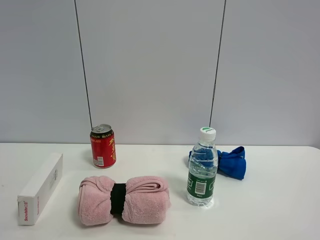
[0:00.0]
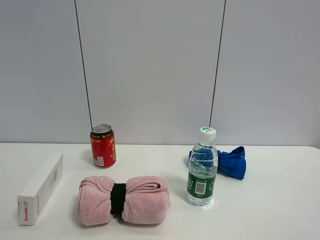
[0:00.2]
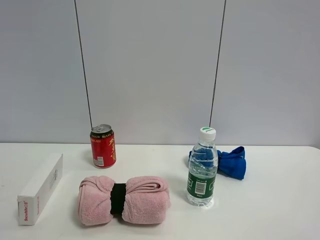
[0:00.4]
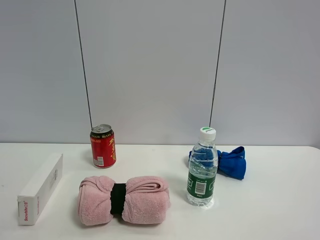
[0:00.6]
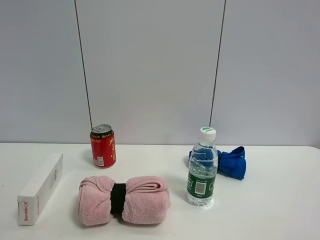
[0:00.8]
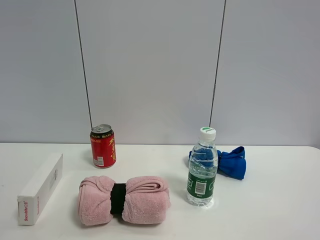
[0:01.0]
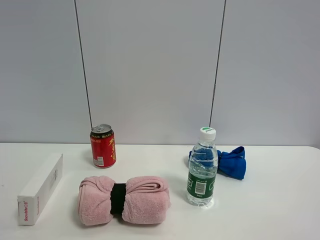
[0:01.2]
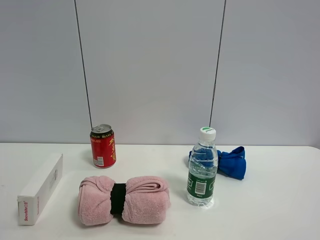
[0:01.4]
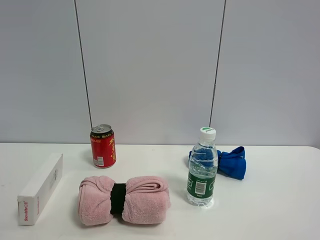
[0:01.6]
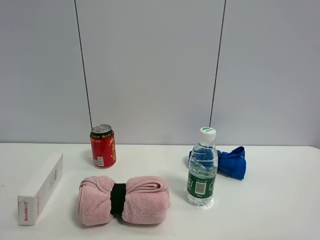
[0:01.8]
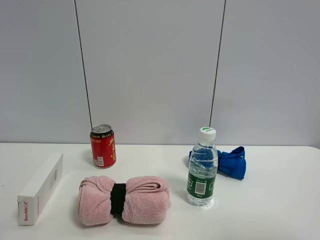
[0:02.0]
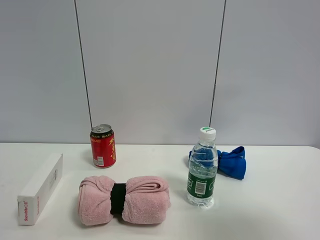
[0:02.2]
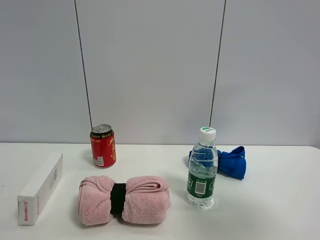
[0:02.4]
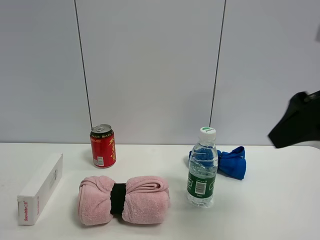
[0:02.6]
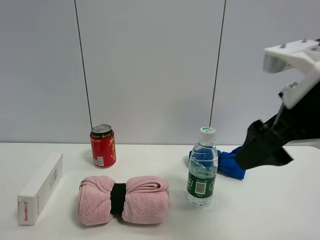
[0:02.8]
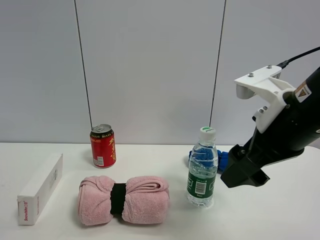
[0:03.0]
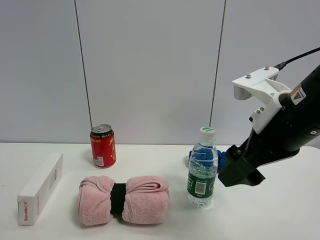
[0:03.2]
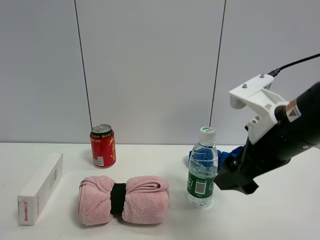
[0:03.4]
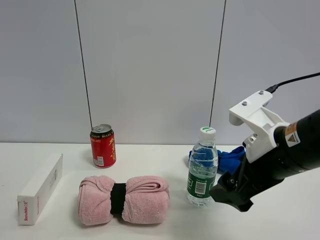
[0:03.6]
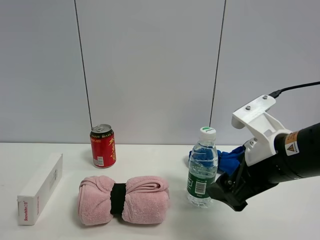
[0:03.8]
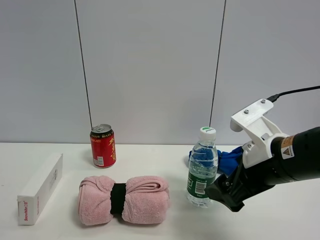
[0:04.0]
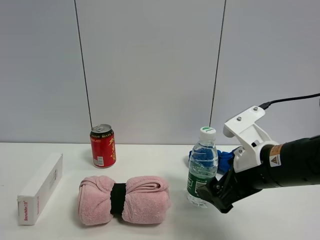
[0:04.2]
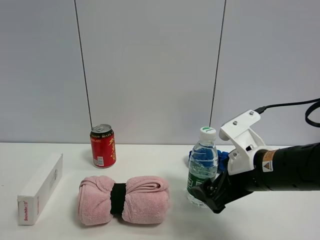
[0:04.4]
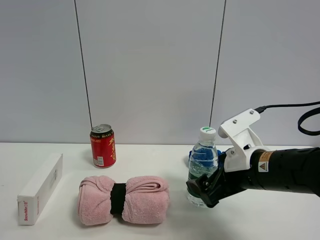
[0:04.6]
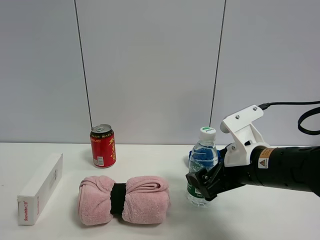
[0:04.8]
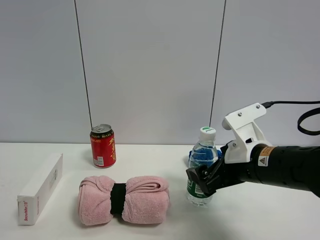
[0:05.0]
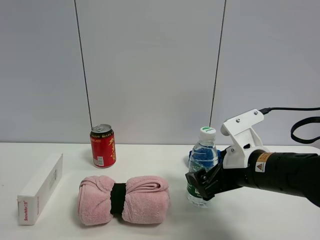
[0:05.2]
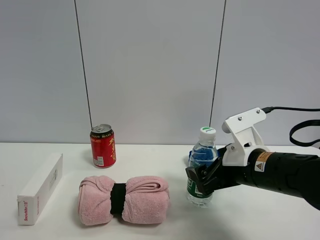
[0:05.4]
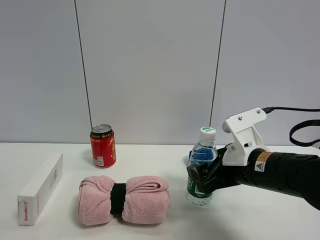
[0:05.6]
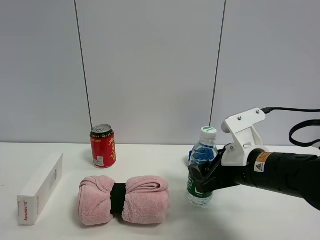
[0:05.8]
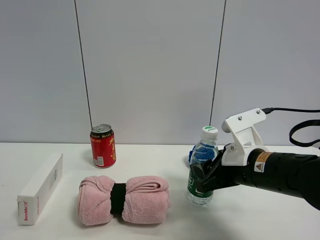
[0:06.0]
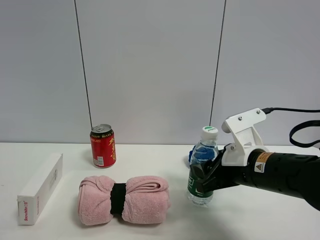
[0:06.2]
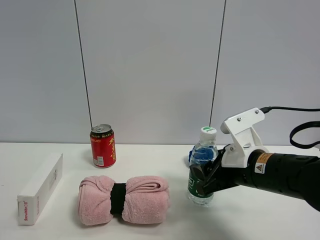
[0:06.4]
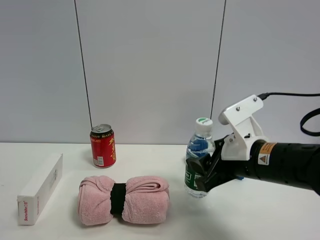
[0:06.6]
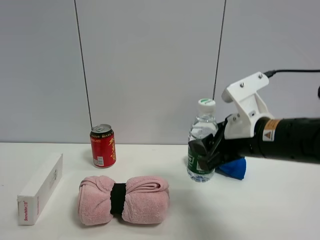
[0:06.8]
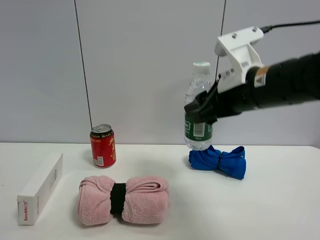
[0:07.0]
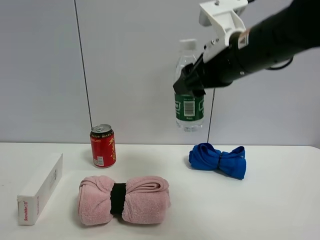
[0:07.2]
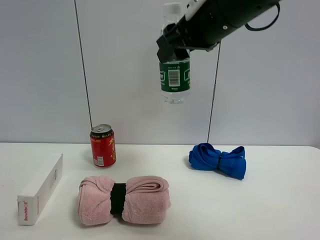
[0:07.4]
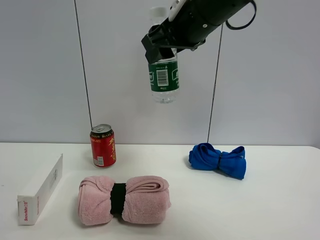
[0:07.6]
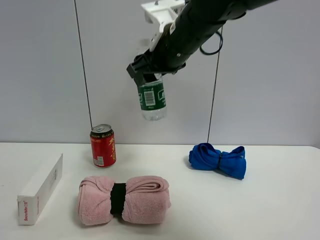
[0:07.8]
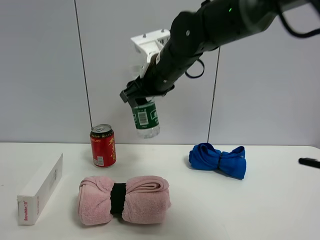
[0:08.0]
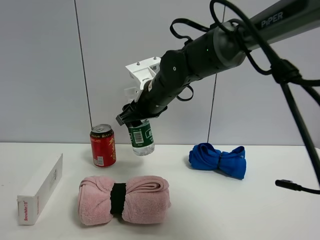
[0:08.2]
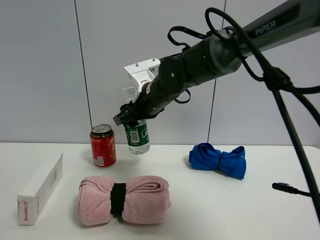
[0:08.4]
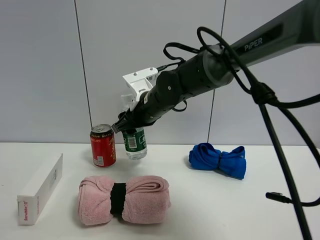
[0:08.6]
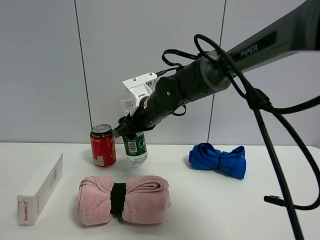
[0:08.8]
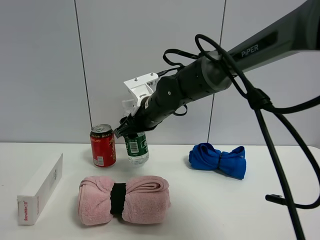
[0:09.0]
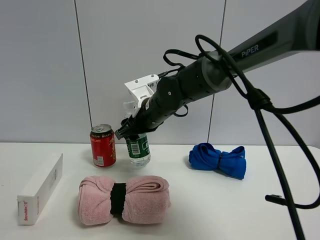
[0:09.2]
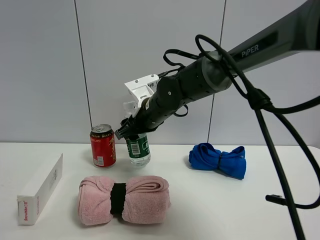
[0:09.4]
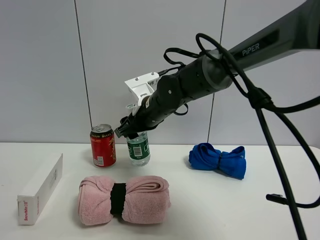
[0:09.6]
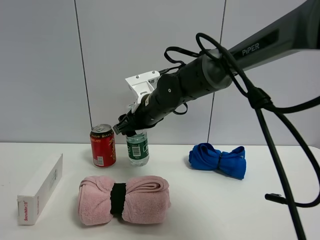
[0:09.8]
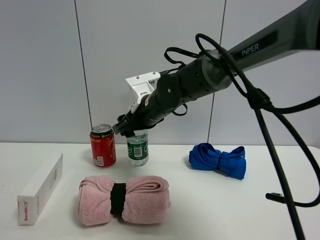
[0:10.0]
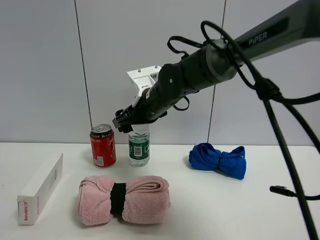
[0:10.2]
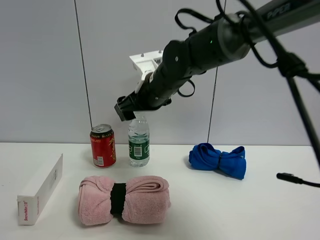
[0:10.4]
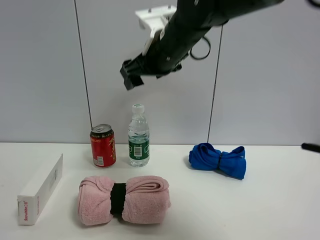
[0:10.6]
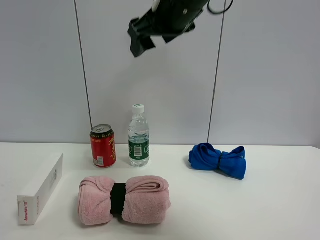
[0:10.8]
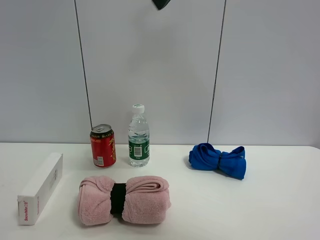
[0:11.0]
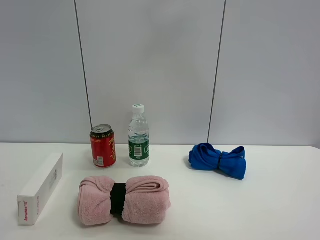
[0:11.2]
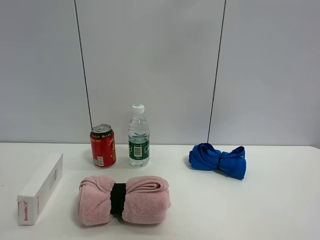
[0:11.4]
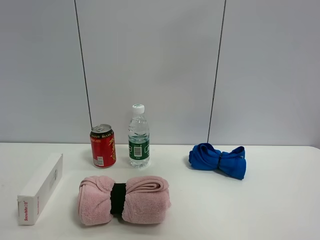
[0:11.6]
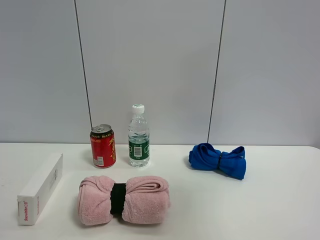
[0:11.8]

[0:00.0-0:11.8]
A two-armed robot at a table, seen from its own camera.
Task of the whole recording: the gripper move the object.
Step, 0:00.0 to 0:05.8: Grasp the YiBao mineral water with the right gripper.
Step, 0:06.0 to 0:10.4: Place the YiBao mineral water on the table with the right gripper.
0:00.0 to 0:01.4: Neither gripper changes place.
0:01.4 to 0:03.0: The right gripper shifts some 25 cm forward and to the left.
0:03.0 to 0:04.4: The right gripper is displaced downward by roughly 10 cm.
0:04.4 to 0:06.0: The right gripper closes up.
0:06.0 to 0:07.4: The right gripper heads upward, covering about 25 cm.
0:07.4 to 0:08.8: The right gripper shifts roughly 25 cm downward, forward and to the left.
0:08.8 to 0:10.4: The right gripper is displaced upward by about 5 cm, and opens up.
0:10.4 to 0:11.8: The right gripper travels backward, to the right and upward by about 40 cm.

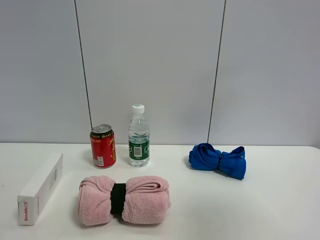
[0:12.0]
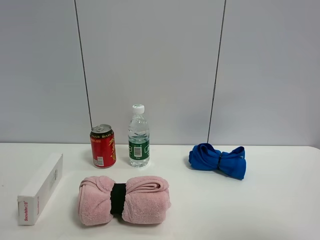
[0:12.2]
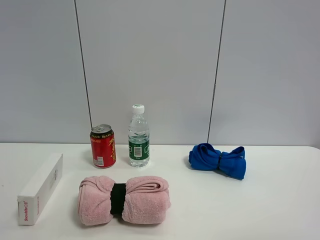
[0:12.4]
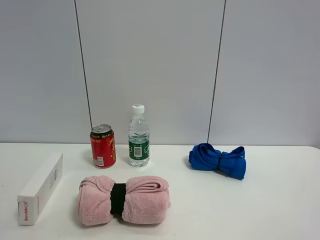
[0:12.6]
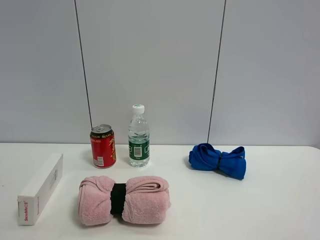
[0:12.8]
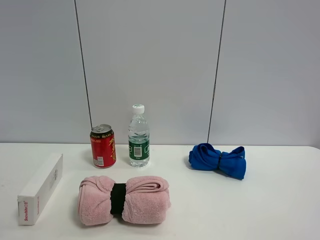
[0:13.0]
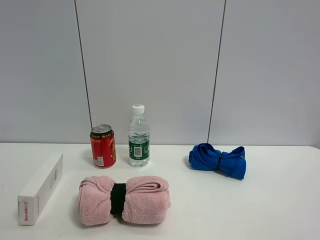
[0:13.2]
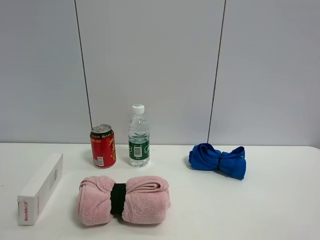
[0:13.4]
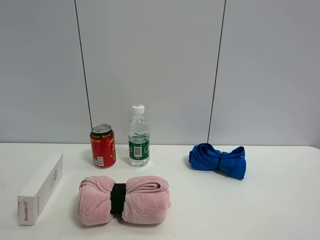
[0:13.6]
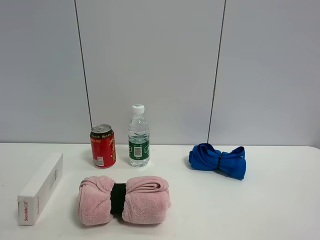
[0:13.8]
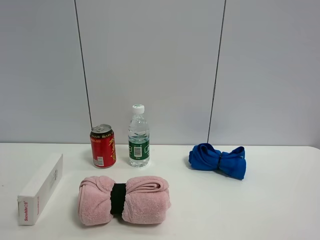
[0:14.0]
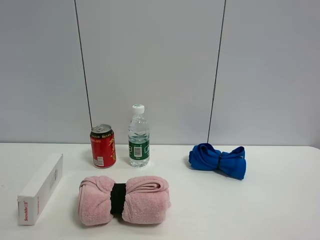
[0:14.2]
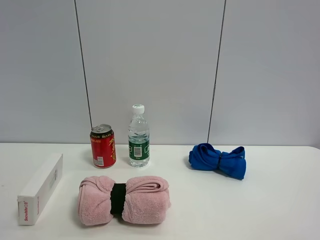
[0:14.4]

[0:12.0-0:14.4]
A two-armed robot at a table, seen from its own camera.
Task of the whole recording: the gripper move the object.
0:12.0 to 0:13.2: The right gripper moves backward and downward, roughly 15 cm.
0:13.2 to 0:14.4: The two grippers keep their place.

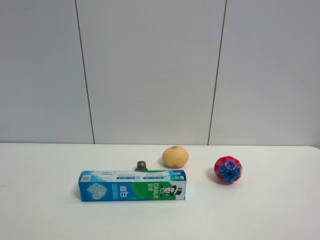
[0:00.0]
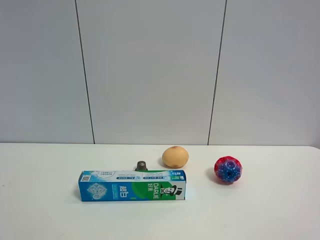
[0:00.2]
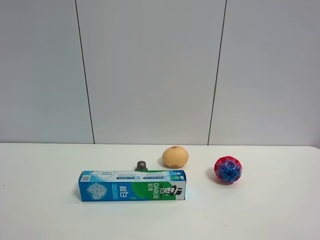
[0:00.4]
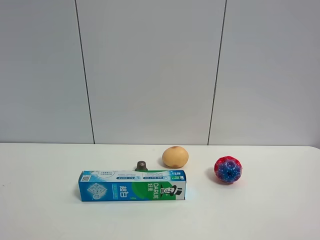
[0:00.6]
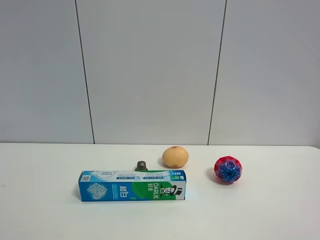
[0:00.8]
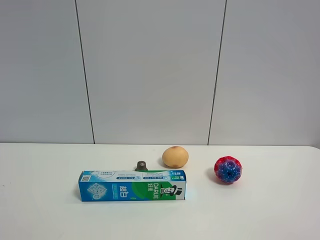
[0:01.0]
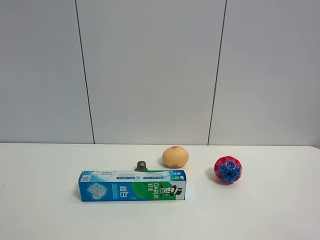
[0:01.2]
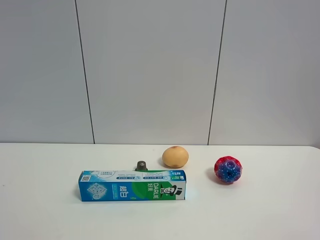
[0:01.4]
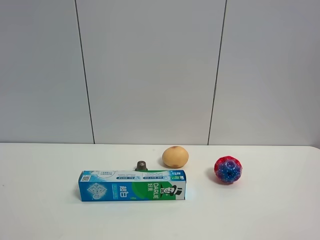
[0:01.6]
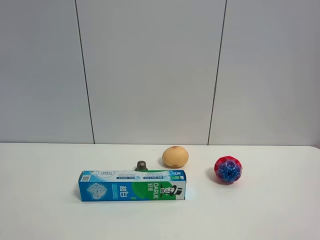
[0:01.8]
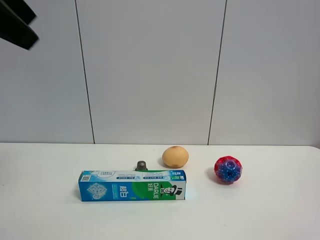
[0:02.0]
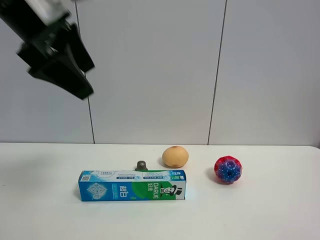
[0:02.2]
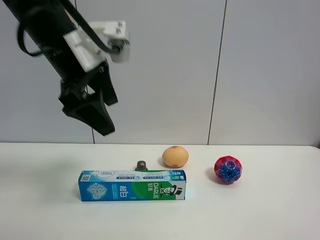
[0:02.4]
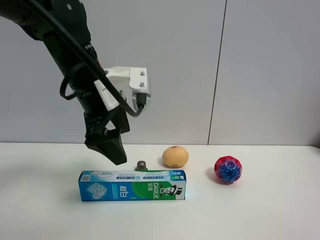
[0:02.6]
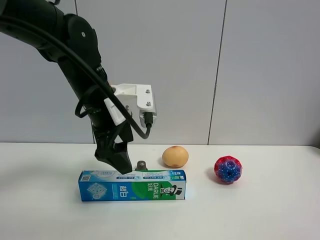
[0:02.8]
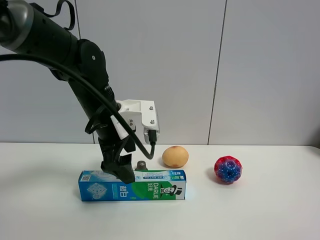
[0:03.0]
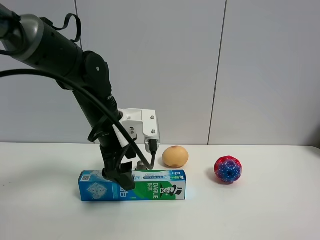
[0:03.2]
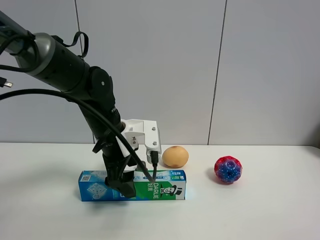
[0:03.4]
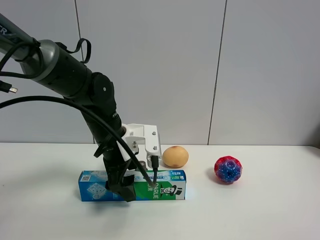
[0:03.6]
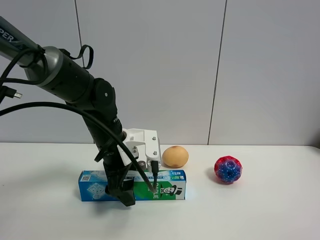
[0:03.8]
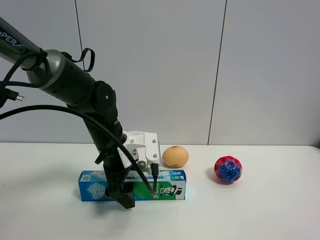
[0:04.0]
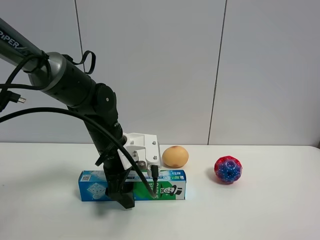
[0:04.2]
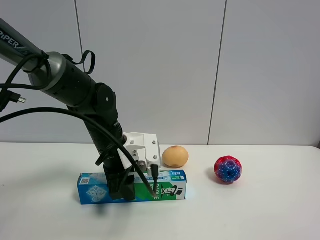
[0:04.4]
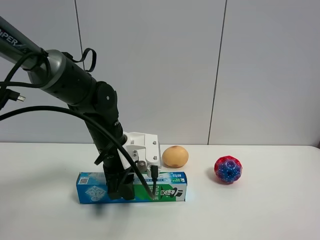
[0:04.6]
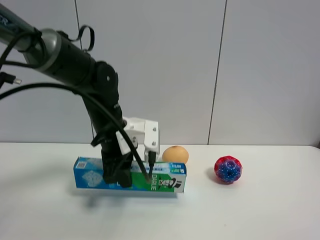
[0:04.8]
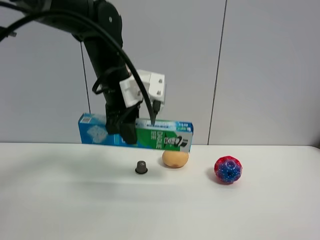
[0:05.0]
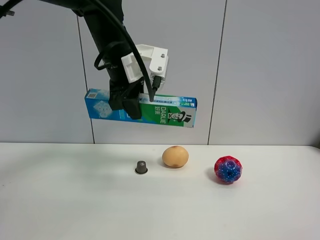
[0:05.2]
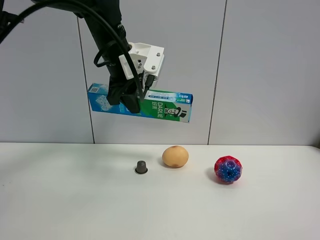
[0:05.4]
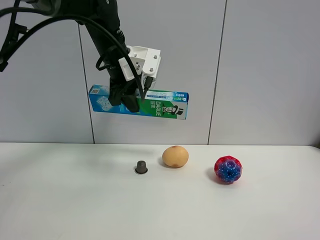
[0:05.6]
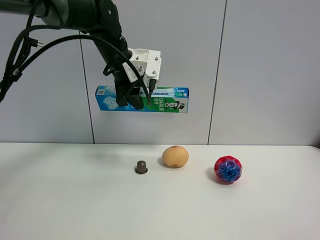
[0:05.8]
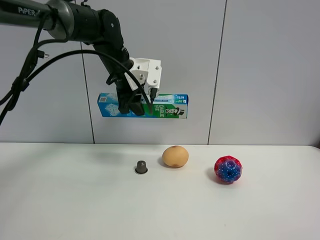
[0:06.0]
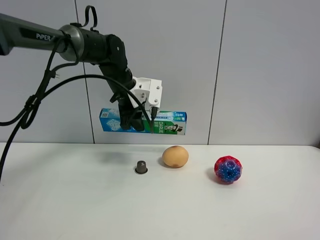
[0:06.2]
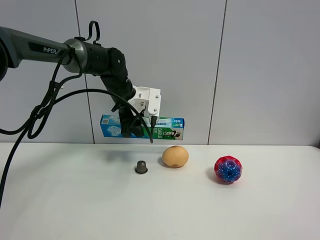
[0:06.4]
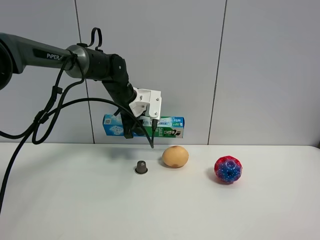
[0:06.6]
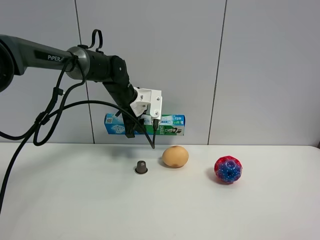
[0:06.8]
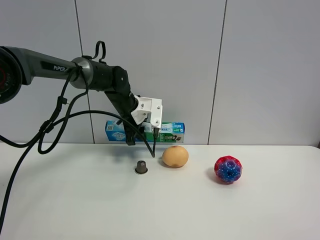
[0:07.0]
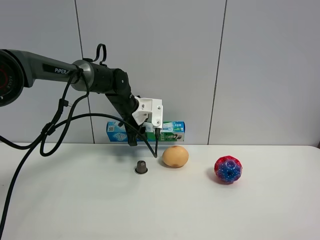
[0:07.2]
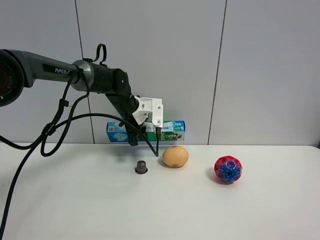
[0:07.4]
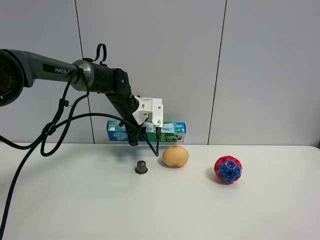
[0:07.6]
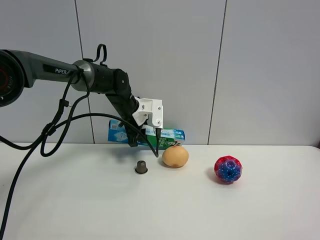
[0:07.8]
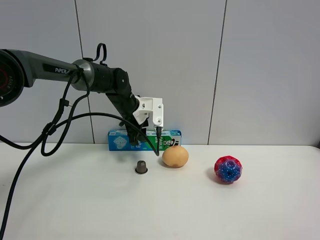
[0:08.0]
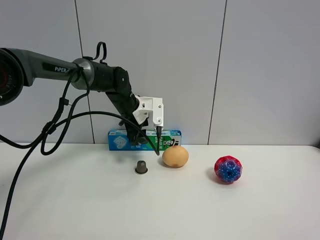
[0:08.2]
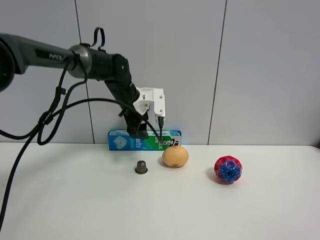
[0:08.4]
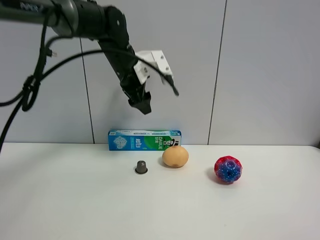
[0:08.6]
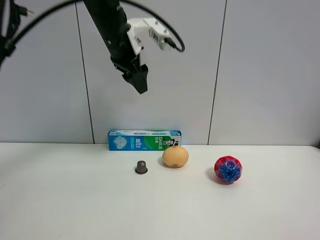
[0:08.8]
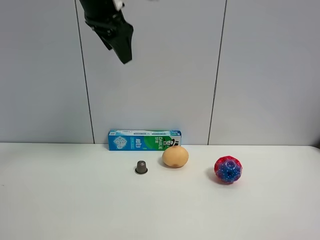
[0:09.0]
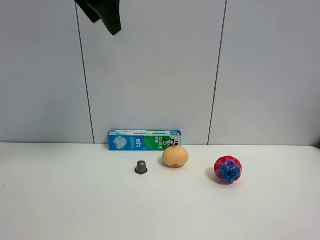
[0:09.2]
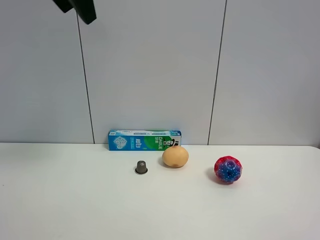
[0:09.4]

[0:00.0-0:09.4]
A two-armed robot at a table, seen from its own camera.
Task of the whole recording: the gripper move the object.
Step, 0:00.0 to 0:04.4: Grasp the toothpaste with the left gripper.
Step, 0:04.6 to 0:08.2: Place the toothpaste on the table with the left gripper.
0:01.6 to 0:03.2: The left gripper goes roughly 40 cm downward, forward and to the right.
0:03.2 to 0:04.8: The left gripper closes up.
0:04.8 to 0:06.2: The left gripper is displaced forward by approximately 10 cm.
0:06.2 to 0:07.8: The left gripper heads downward, covering about 5 cm.
0:07.8 to 0:09.4: The left gripper heads upward and backward, covering roughly 35 cm.
